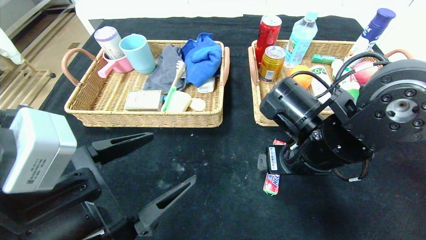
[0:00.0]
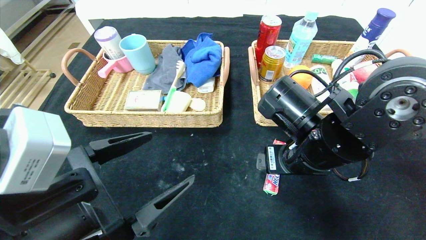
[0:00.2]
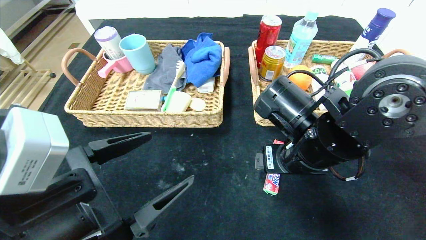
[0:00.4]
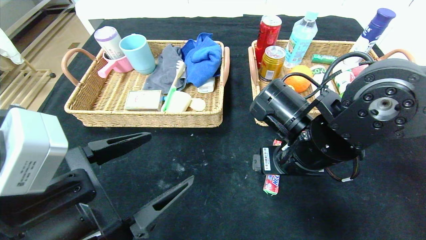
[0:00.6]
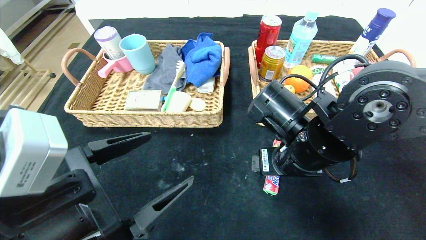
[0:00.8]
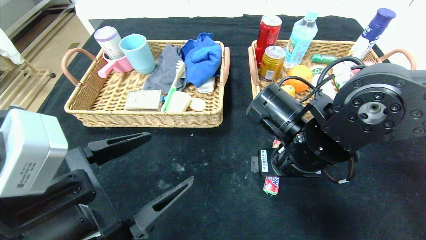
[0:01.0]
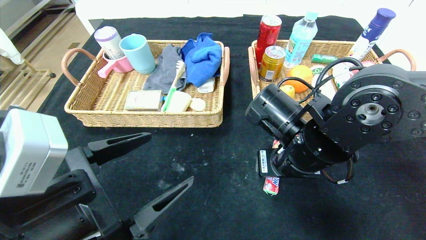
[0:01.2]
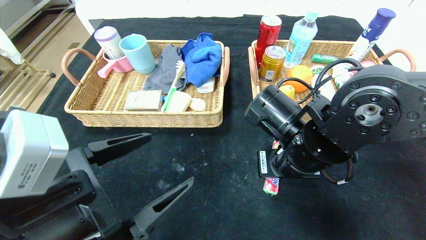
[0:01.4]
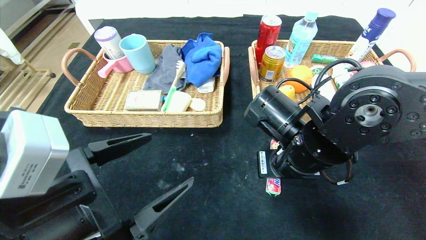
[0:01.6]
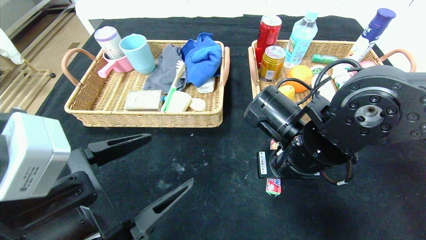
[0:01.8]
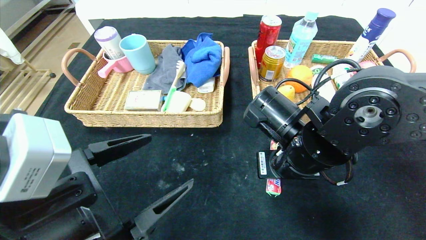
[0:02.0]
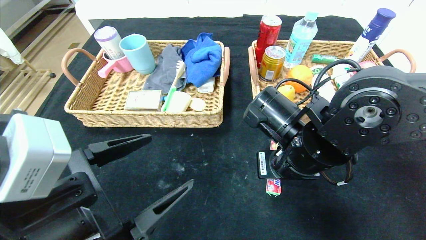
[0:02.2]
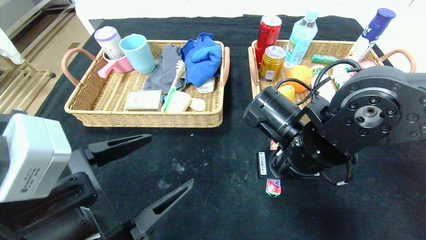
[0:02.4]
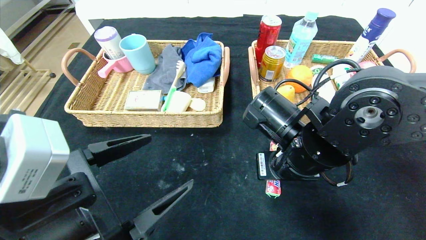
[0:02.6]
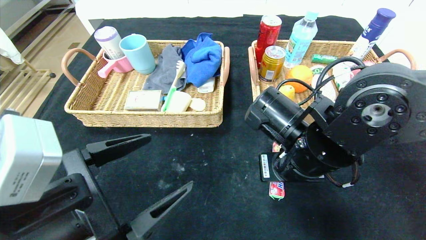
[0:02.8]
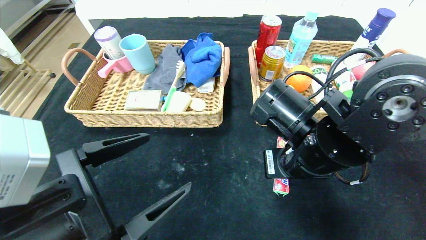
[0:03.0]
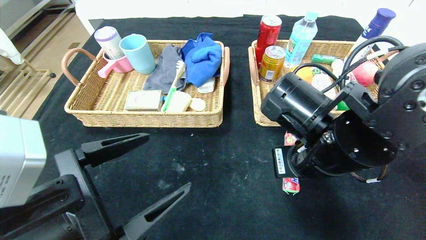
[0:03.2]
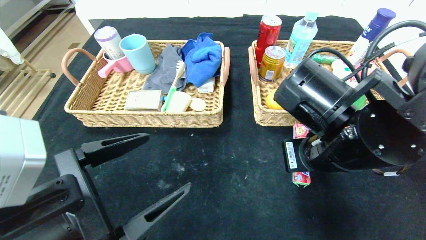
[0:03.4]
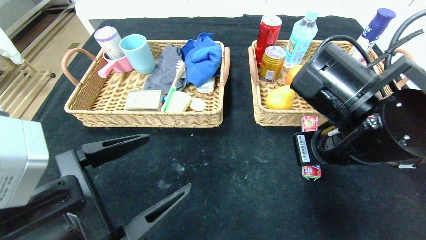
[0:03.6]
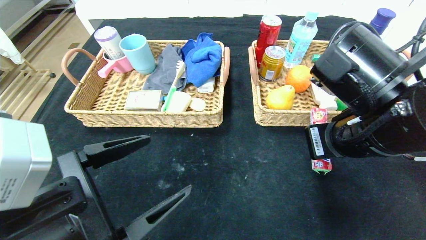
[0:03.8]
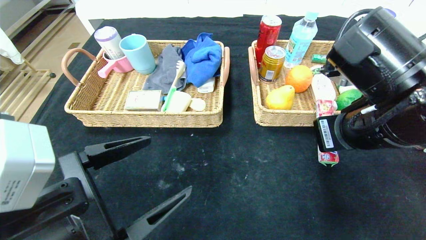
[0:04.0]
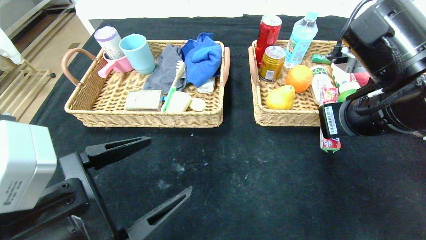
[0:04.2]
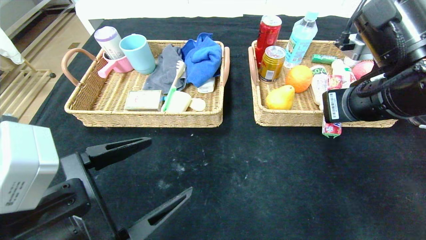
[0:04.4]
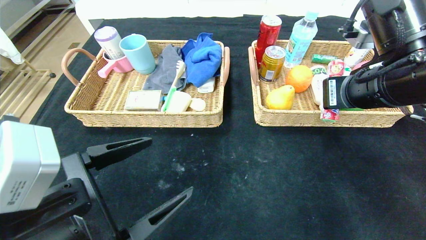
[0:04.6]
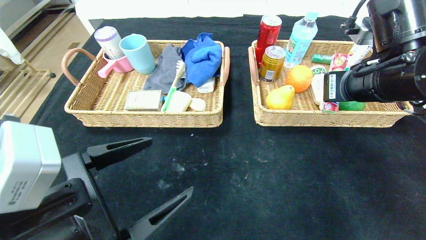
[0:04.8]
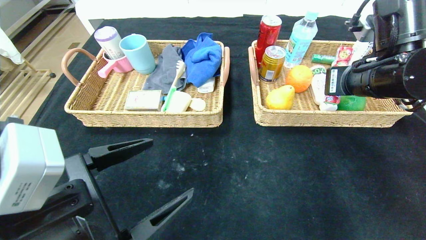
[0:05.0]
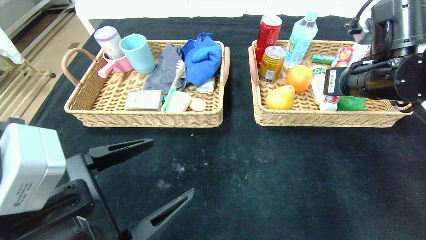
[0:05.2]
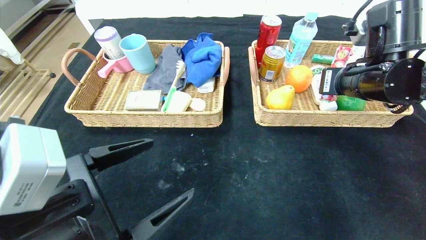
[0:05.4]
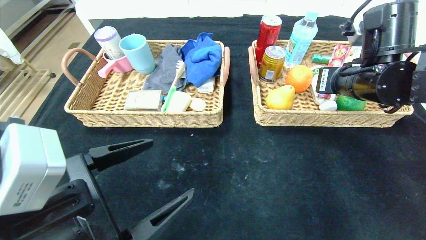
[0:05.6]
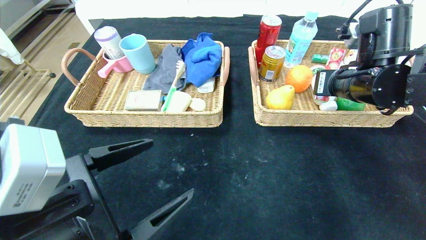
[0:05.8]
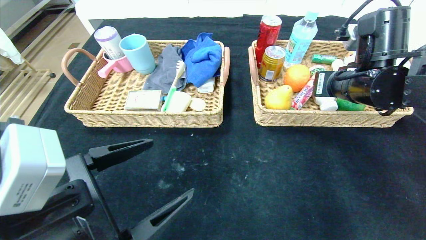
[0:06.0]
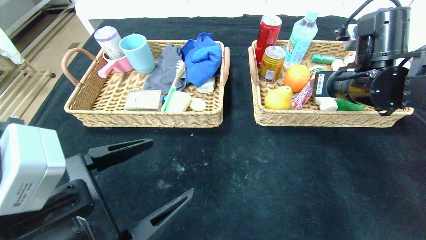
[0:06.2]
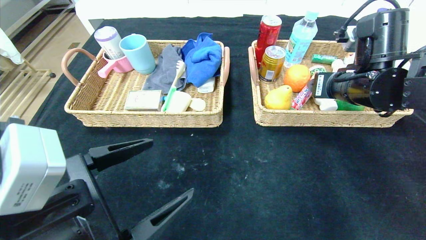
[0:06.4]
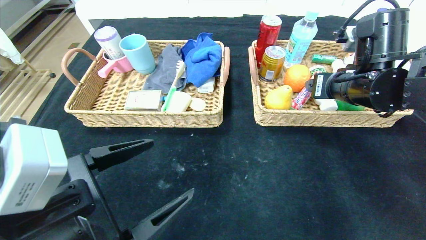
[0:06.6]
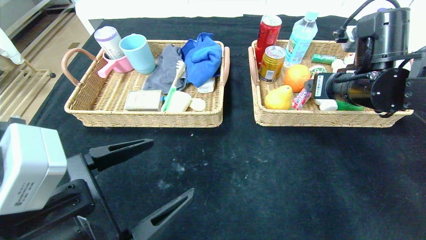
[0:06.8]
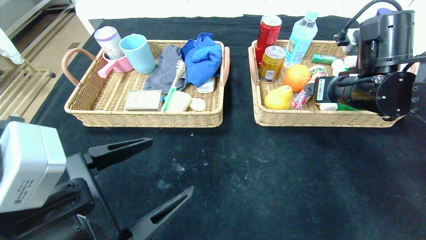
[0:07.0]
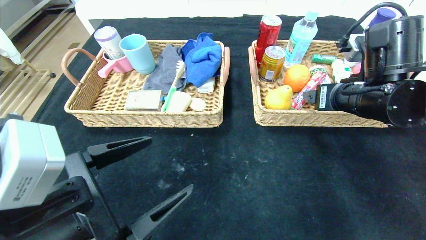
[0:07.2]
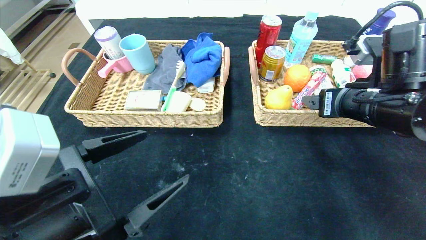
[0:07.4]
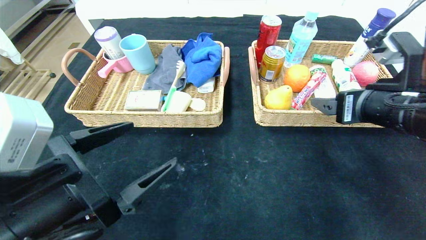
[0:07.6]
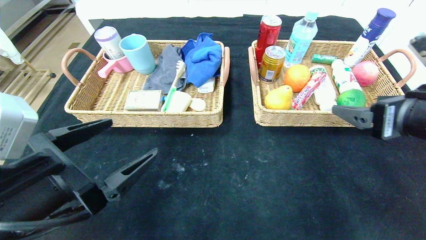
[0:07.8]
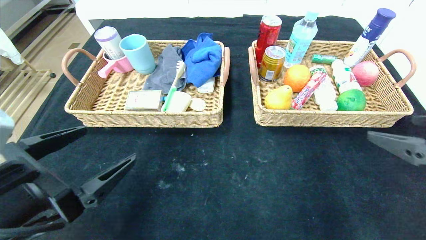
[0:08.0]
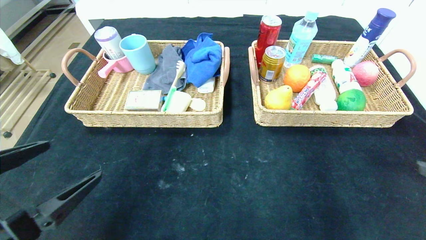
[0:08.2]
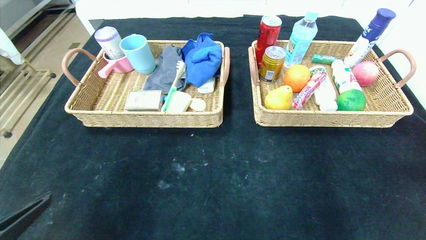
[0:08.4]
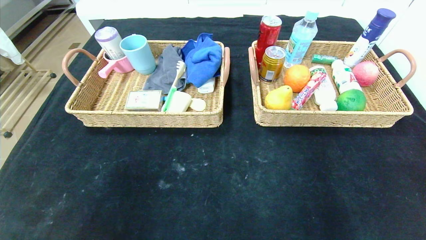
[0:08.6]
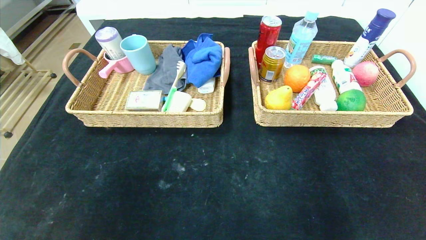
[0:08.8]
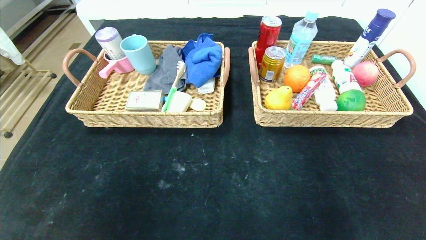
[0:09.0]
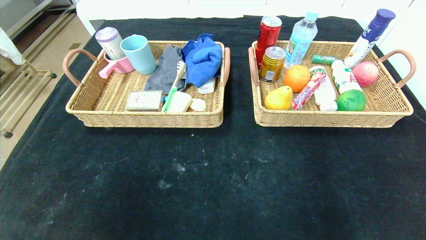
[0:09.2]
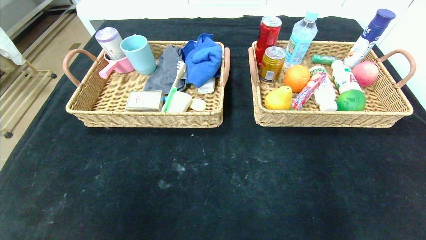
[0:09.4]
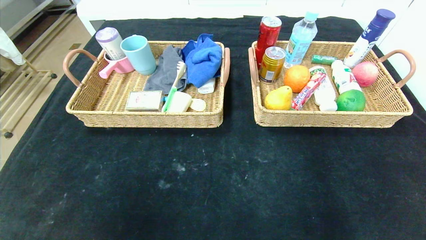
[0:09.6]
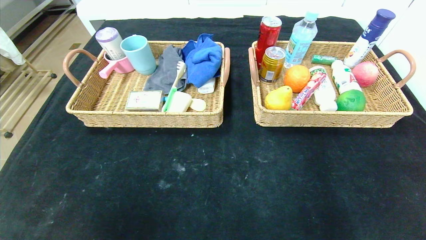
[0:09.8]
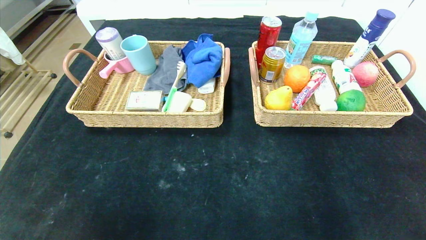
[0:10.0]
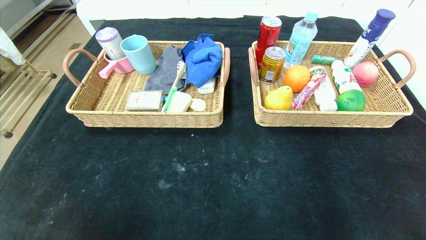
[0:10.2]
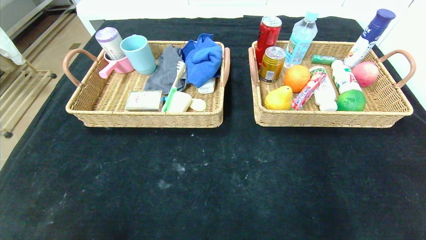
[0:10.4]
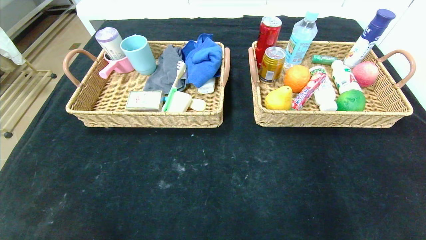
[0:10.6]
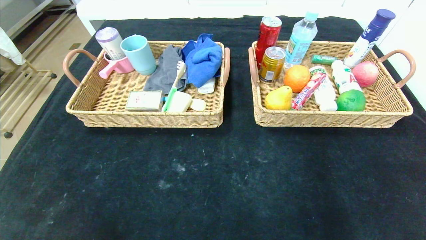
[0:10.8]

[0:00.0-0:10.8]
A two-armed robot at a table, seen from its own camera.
Step, 0:00.0 to 0:06.0: Grasp the fruit fudge and put it in the right basket.
0:00.0 to 0:01.6: The right gripper closes up.
0:01.6 to 0:03.0: The grippers stay close to where they were, moving slightly.
0:03.0 to 0:04.6: The right gripper moves to the right and upward, some 10 cm.
0:04.6 to 0:06.2: The right gripper goes some 5 cm forward, and opens up.
0:06.2 to 0:07.8: The right gripper moves backward, about 15 cm, and opens.
0:07.8 to 0:09.2: Both grippers move backward, about 25 cm.
